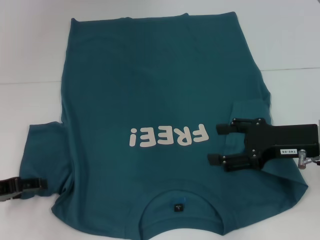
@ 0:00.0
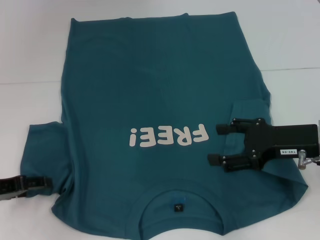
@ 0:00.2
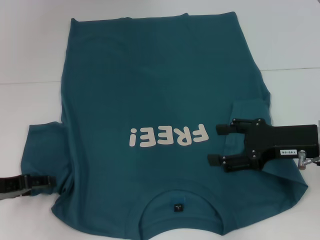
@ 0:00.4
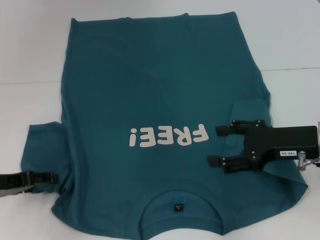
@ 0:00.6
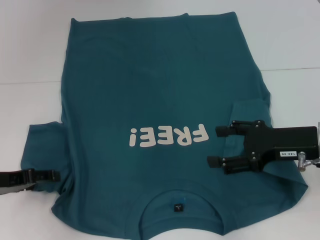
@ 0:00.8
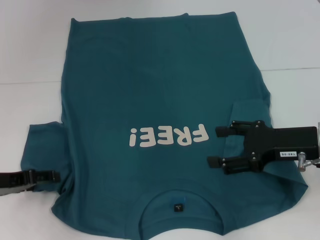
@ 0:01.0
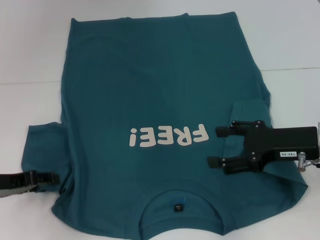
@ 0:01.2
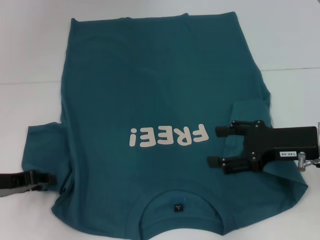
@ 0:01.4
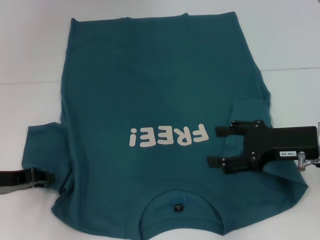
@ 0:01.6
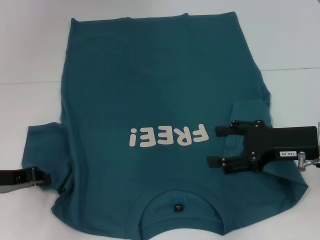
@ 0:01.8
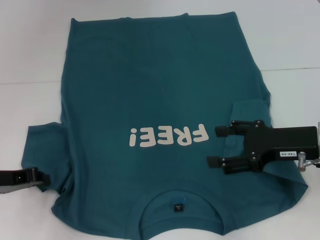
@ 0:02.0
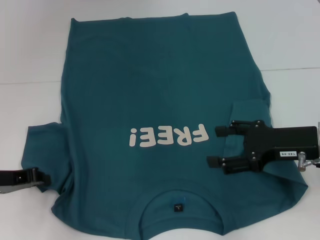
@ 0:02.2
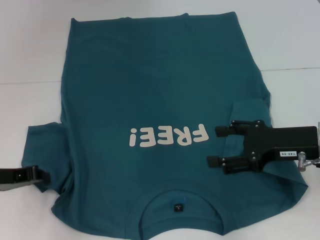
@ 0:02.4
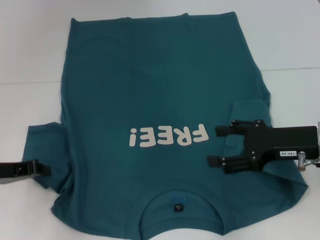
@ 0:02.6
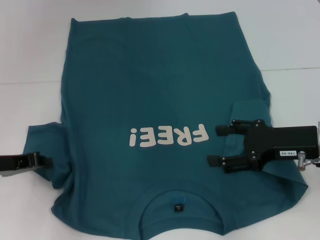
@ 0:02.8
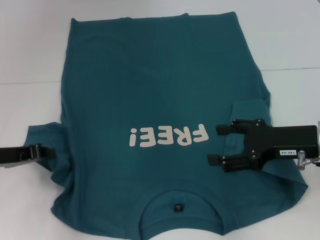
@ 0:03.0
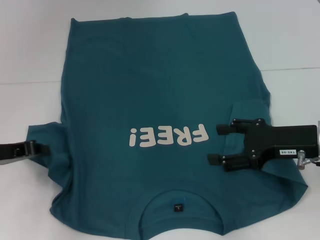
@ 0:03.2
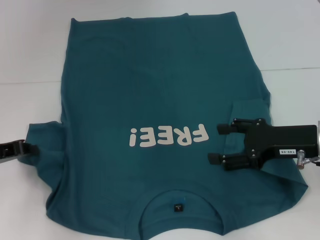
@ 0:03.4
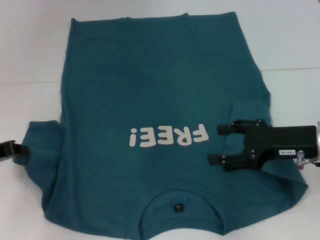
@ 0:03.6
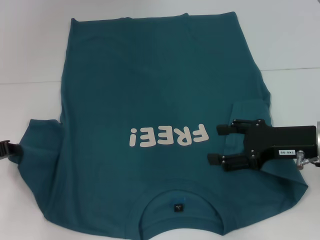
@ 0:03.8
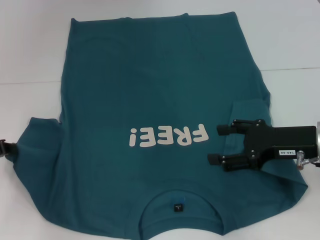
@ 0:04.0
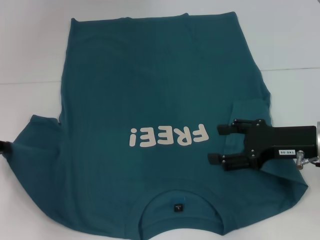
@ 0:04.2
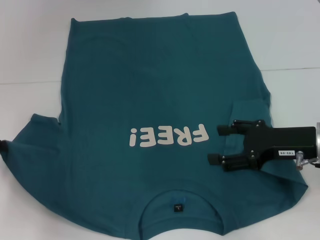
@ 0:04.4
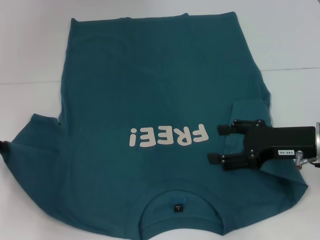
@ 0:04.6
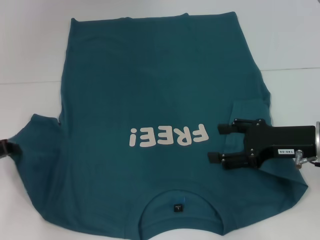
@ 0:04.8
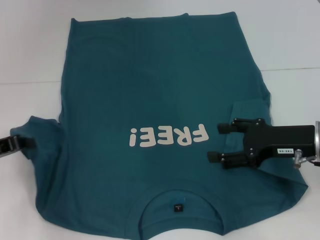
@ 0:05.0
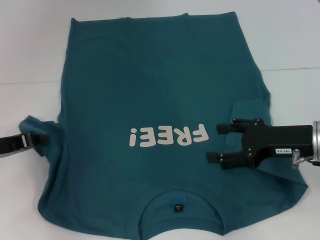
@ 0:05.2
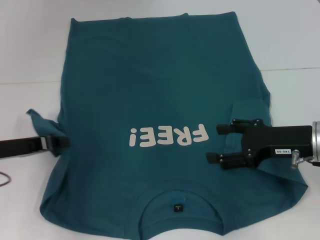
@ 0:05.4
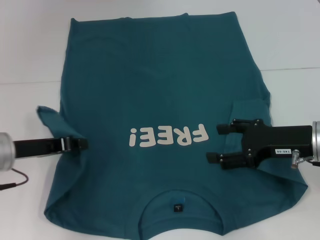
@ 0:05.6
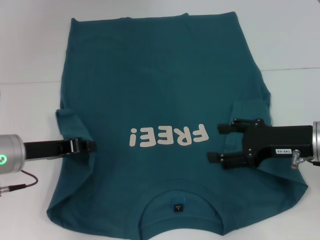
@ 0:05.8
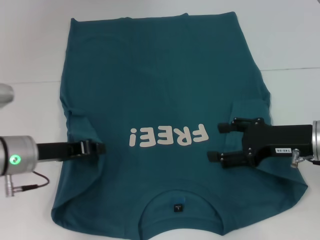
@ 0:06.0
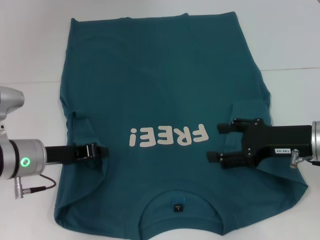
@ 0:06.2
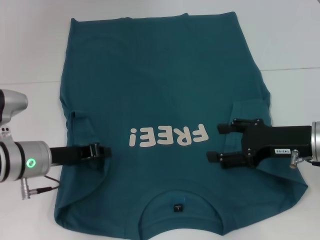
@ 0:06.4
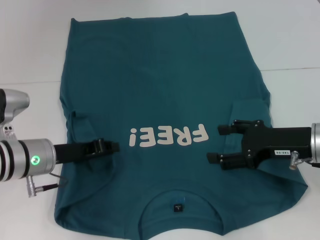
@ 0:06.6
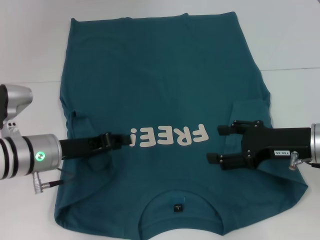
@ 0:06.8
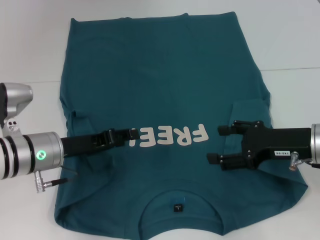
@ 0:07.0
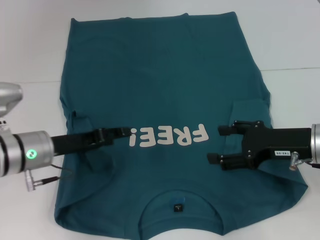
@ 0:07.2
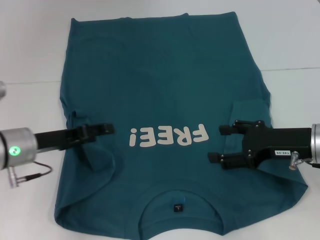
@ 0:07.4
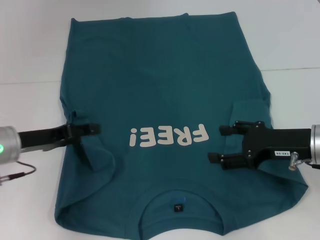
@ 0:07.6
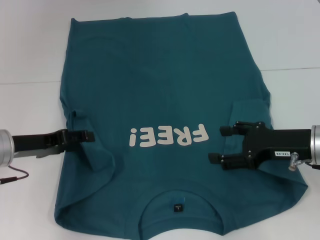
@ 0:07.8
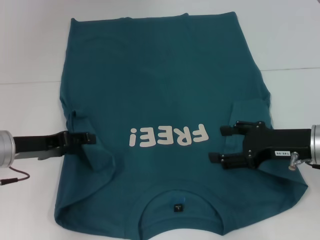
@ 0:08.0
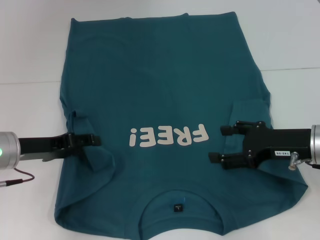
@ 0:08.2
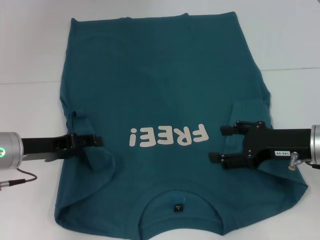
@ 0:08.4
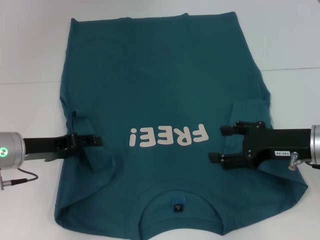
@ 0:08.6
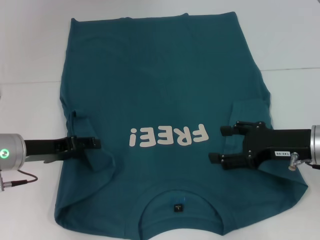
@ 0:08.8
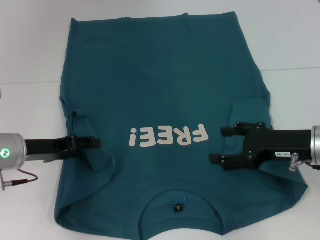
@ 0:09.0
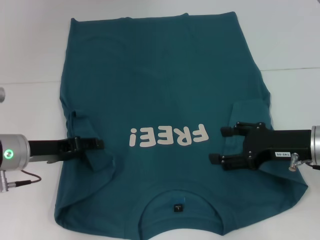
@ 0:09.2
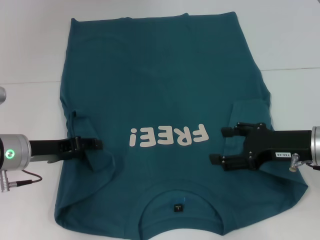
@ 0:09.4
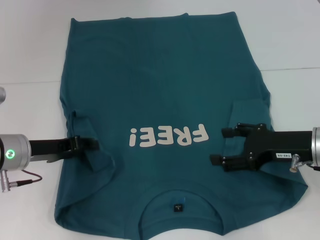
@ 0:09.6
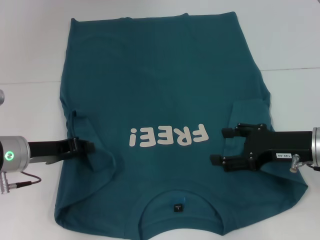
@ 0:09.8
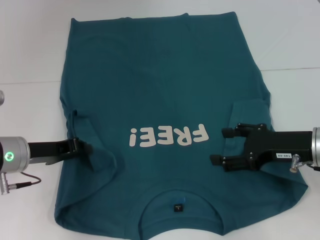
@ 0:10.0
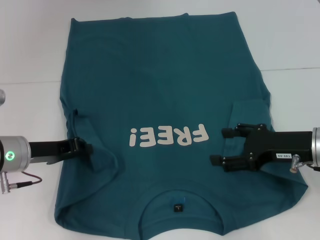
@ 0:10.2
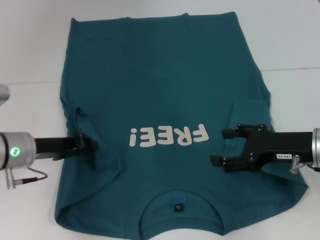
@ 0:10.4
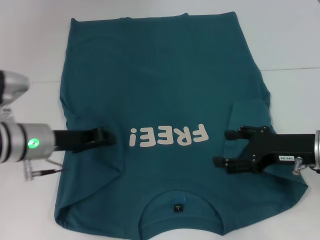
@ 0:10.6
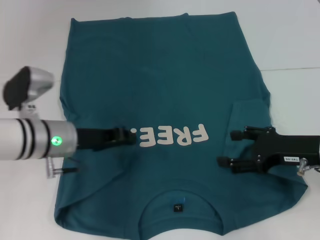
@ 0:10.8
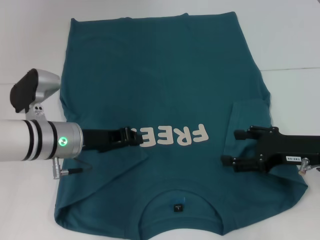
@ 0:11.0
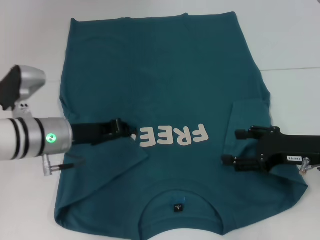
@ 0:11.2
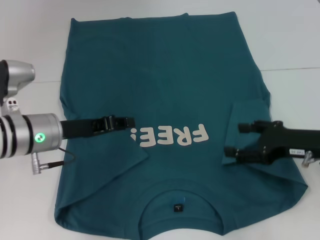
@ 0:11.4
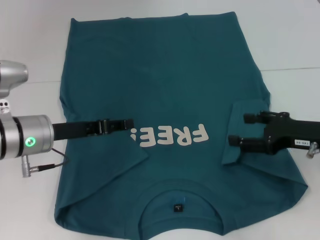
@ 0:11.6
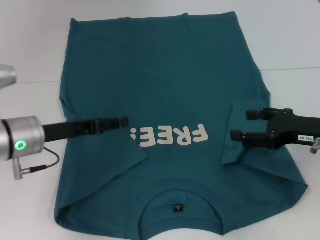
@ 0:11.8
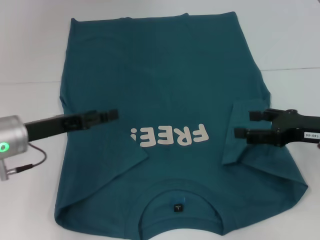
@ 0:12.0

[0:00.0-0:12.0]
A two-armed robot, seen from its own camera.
Step, 0:00.0 to 0:12.0: Fold the bottom left sleeve with your left hand.
0:00.0 to 0:01.6: The grippers move only a little.
0:01.6 to 0:03.0: The left gripper closes.
0:03.0 to 0:04.4: The left gripper shifts approximately 5 cm to the left.
0:04.4 to 0:06.0: The left gripper shifts some 10 cm to the right.
0:06.0 to 0:07.6: The left gripper opens its fingers.
0:07.6 to 0:09.0: The grippers stay close to where they were, moving slightly.
0:09.0 to 0:10.4: The left gripper closes.
0:10.4 to 0:12.0: The left gripper opens up.

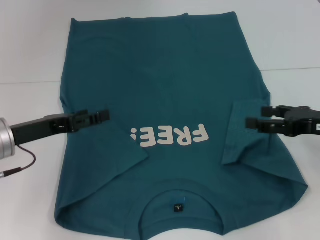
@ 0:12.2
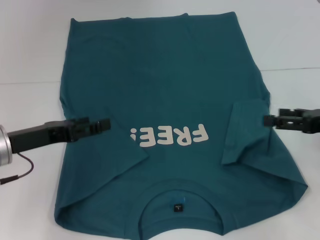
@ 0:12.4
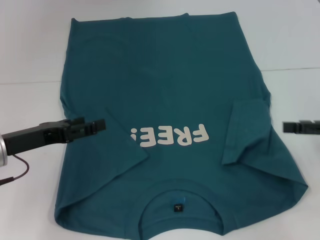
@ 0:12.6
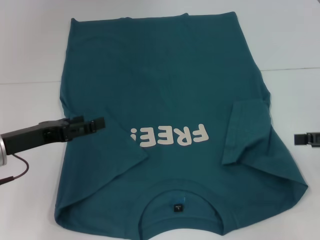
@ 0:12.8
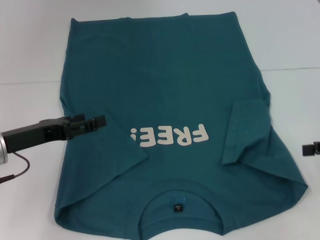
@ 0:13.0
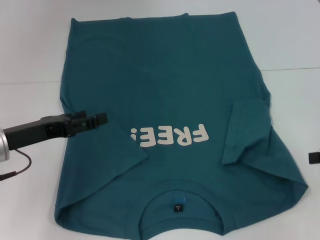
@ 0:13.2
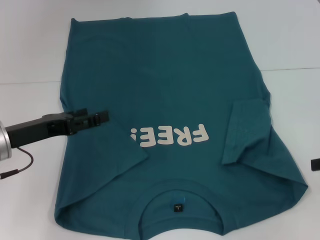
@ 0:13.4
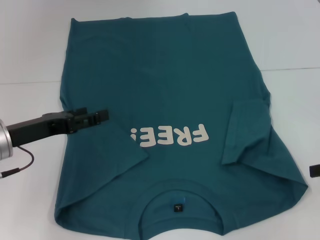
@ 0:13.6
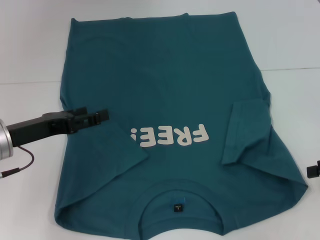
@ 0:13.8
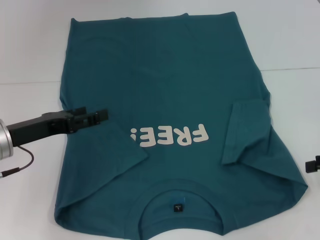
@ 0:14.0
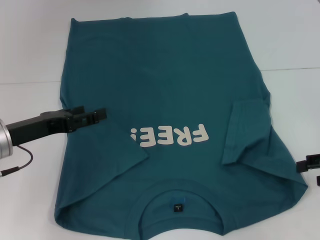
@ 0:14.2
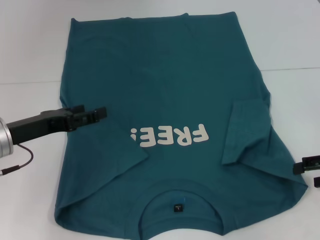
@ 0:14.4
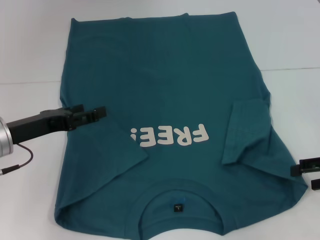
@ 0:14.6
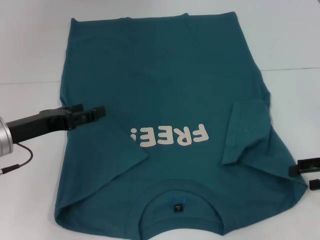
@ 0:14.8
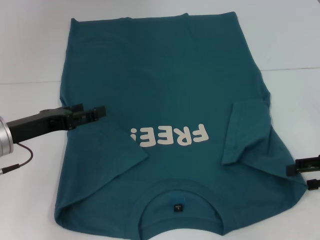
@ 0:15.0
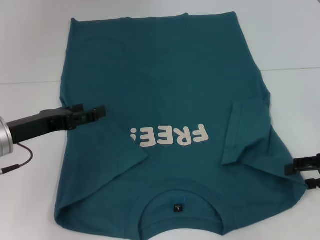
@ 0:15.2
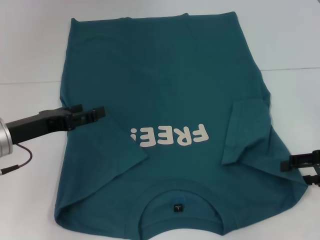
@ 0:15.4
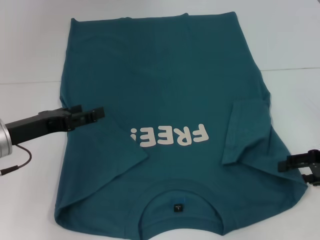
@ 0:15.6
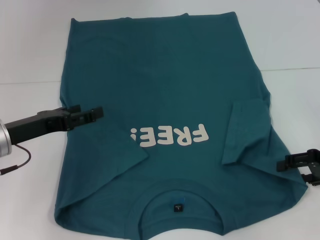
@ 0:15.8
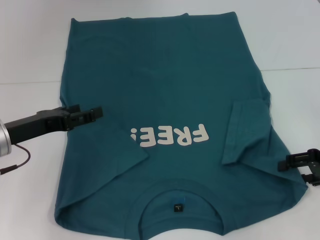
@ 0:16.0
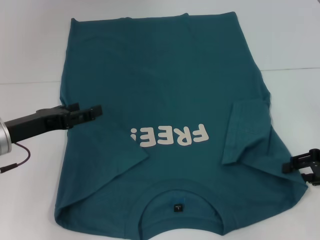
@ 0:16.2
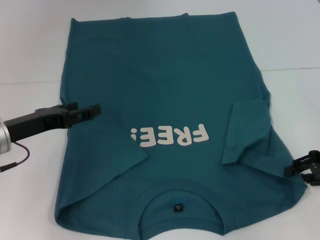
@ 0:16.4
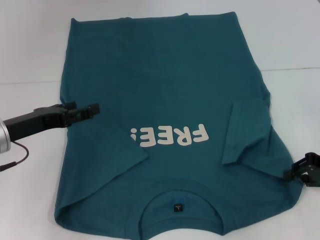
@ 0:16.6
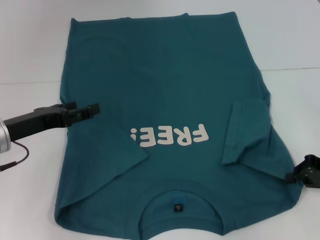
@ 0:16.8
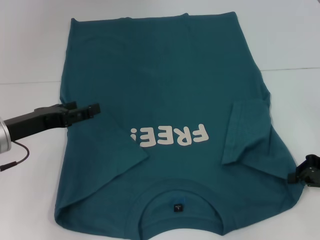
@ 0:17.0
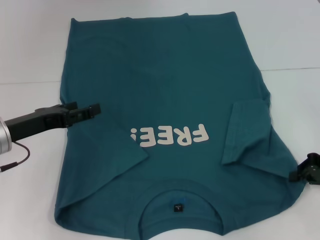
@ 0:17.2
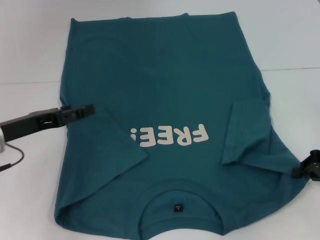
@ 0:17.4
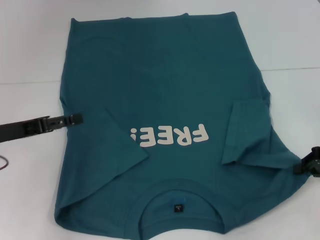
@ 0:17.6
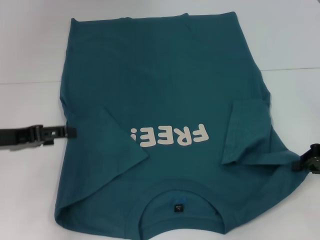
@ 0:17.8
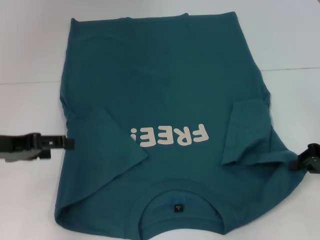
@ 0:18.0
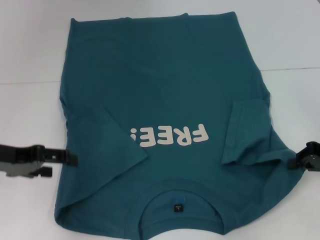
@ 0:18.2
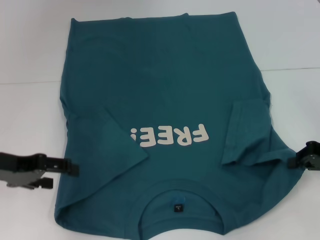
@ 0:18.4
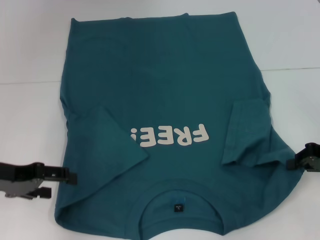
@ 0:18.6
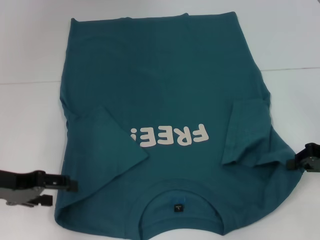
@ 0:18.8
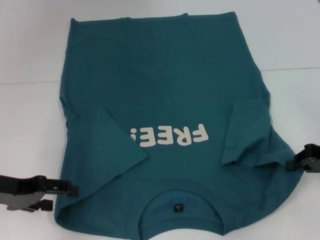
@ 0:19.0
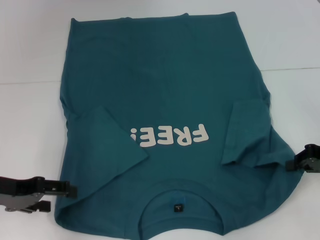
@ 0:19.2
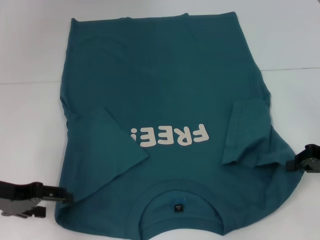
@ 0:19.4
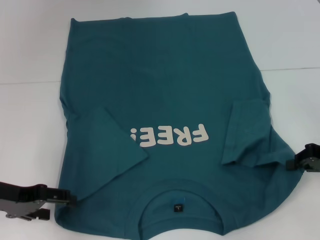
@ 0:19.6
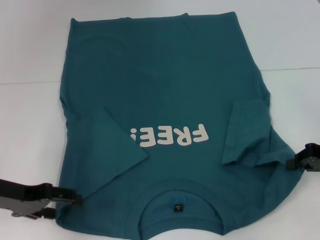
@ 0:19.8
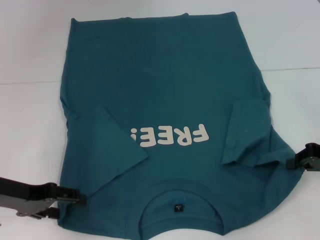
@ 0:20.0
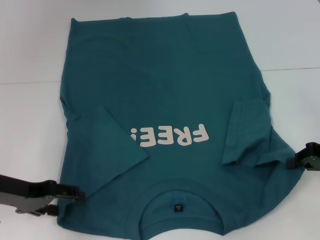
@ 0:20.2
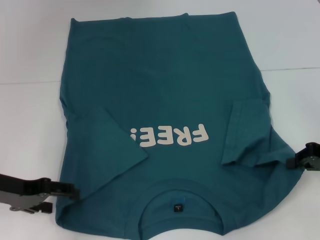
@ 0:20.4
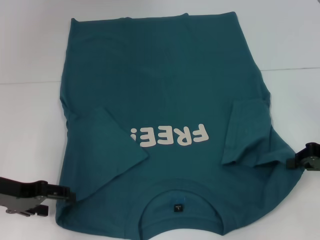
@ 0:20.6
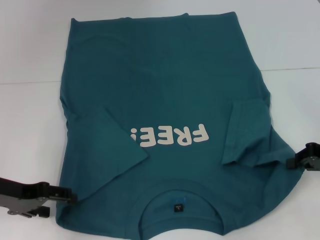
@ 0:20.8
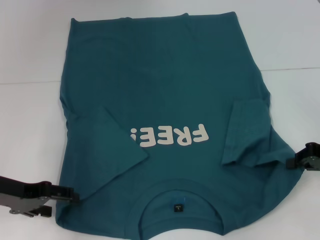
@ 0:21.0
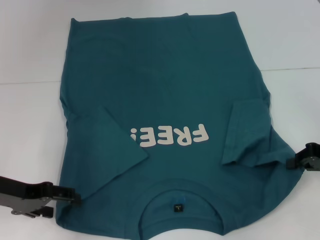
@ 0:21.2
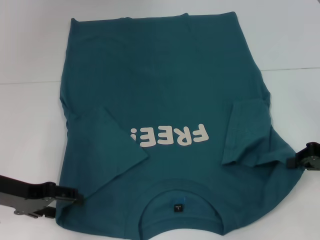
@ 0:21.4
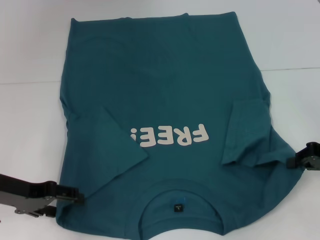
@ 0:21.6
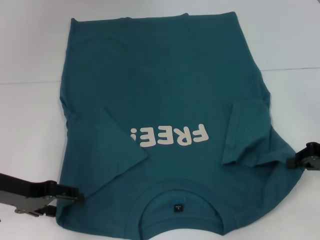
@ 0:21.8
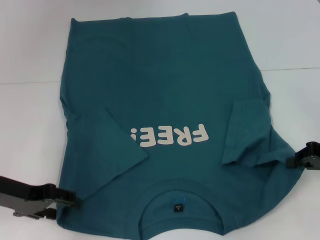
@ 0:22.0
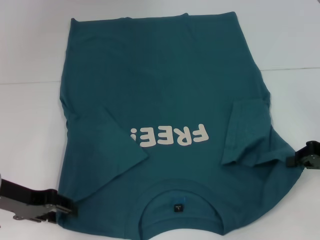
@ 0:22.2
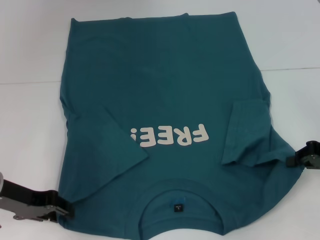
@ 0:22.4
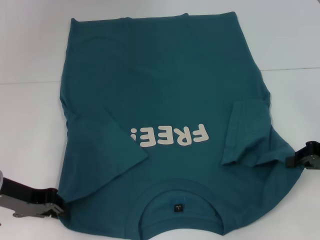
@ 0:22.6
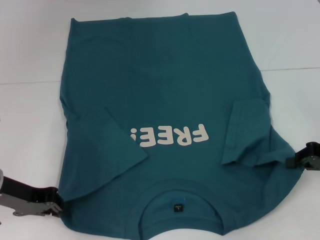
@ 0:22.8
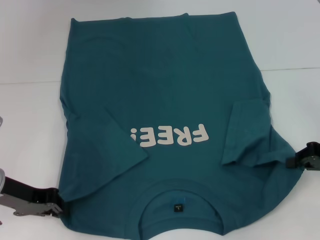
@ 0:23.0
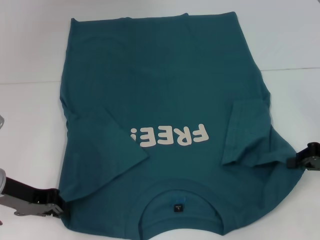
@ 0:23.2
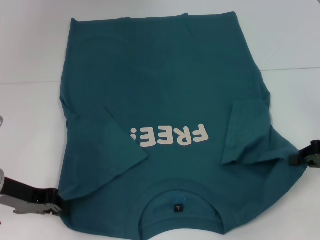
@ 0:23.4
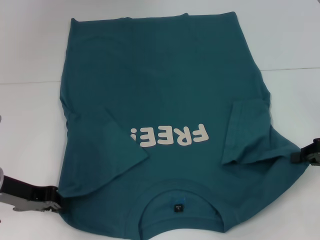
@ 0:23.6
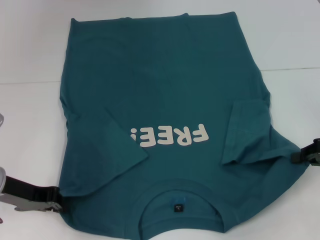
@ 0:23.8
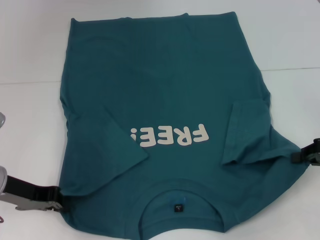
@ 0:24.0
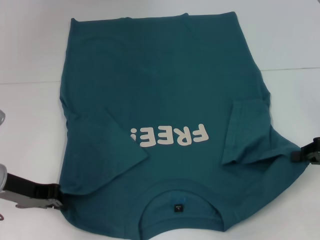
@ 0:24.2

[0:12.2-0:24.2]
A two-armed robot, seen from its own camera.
Step, 0:12.2 to 0:17.6: Grab the bottom right corner with your right hand.
Step, 0:17.8 to 0:24.0: Grab the bottom left corner with your left hand.
0:12.2 to 0:13.8: The right gripper shifts approximately 10 cm to the right.
0:13.8 to 0:15.2: The grippers stay close to where they were, moving slightly.
0:15.2 to 0:16.6: The right gripper closes its fingers.
0:16.6 to 0:18.2: The right gripper closes up. Meanwhile the left gripper changes place by about 5 cm.
0:18.2 to 0:19.8: There are only small adjustments of the grippers.
0:19.8 to 0:21.2: Both grippers stay put.
0:21.2 to 0:22.6: The left gripper closes up.
0:22.6 to 0:24.2: The left gripper closes up.
